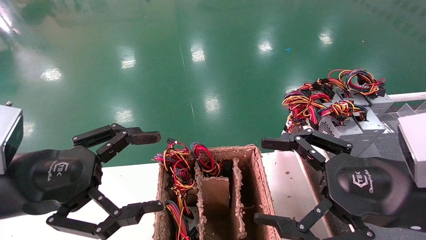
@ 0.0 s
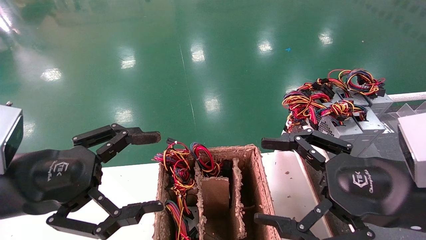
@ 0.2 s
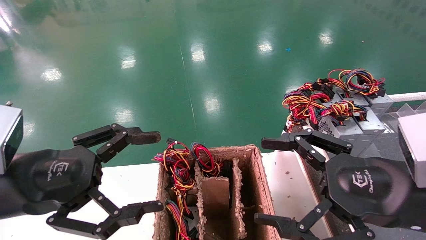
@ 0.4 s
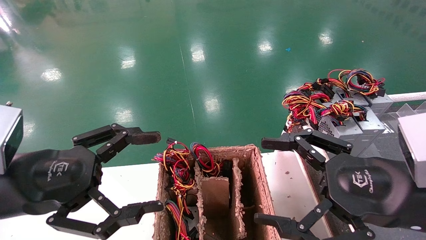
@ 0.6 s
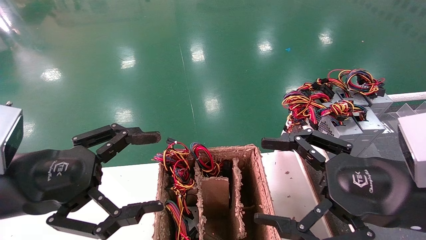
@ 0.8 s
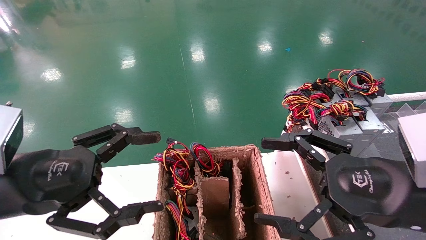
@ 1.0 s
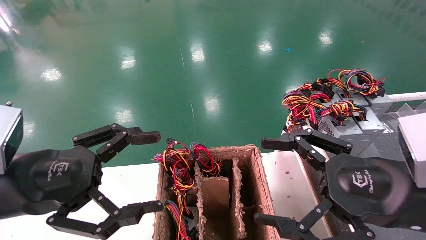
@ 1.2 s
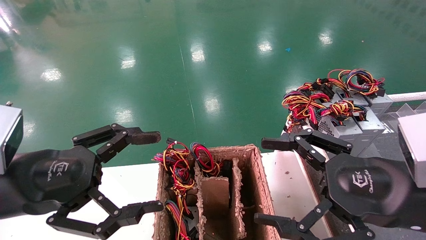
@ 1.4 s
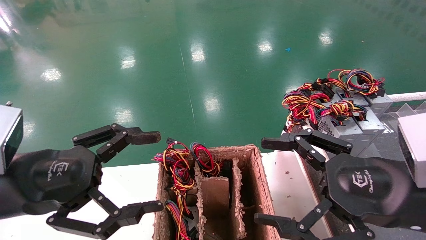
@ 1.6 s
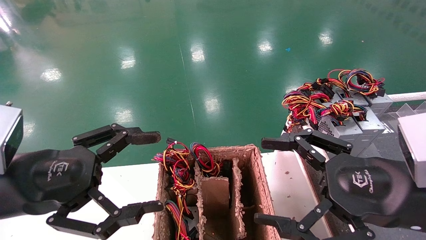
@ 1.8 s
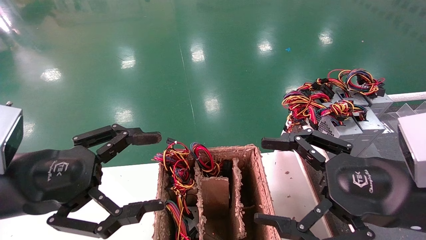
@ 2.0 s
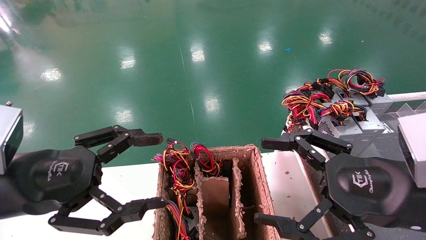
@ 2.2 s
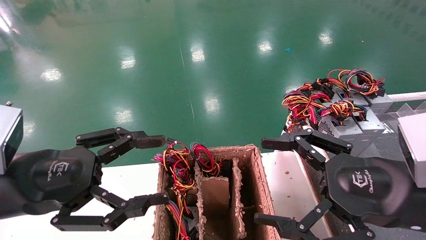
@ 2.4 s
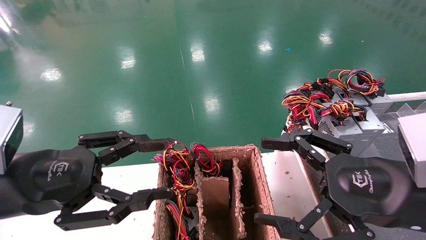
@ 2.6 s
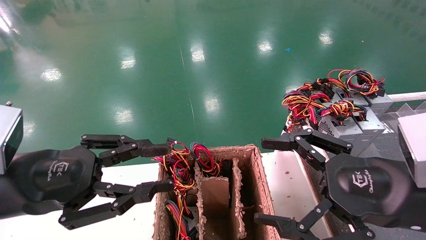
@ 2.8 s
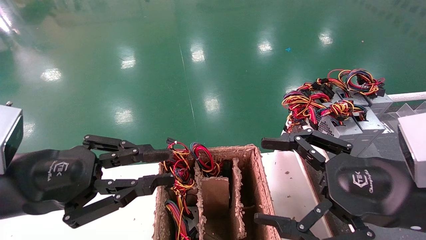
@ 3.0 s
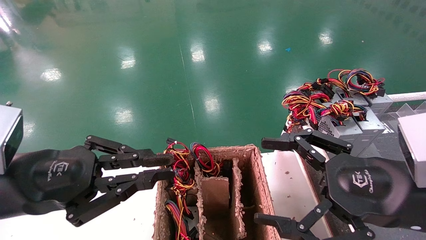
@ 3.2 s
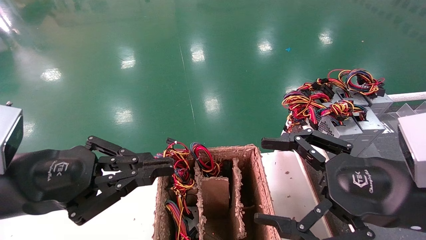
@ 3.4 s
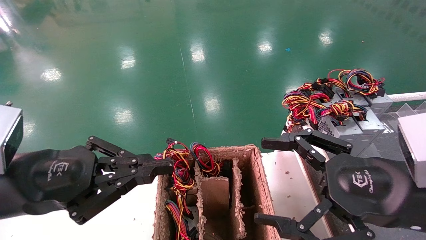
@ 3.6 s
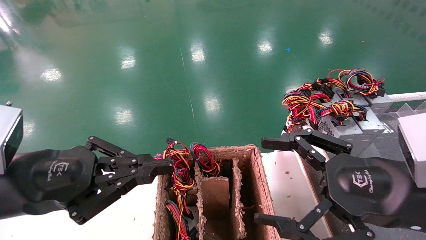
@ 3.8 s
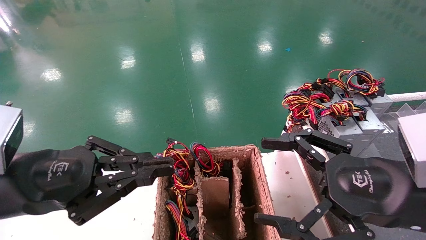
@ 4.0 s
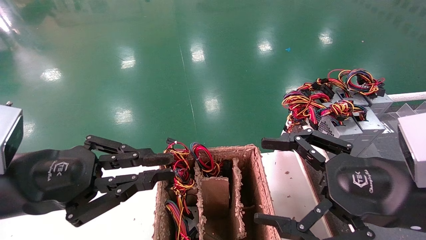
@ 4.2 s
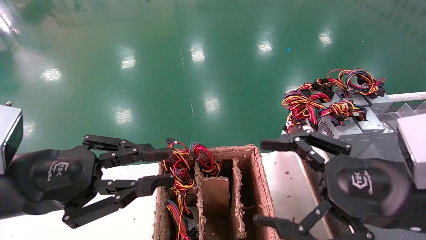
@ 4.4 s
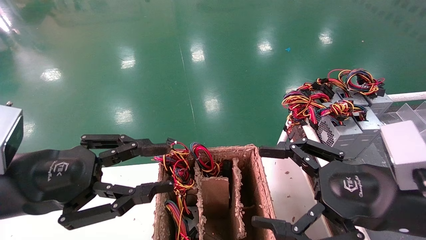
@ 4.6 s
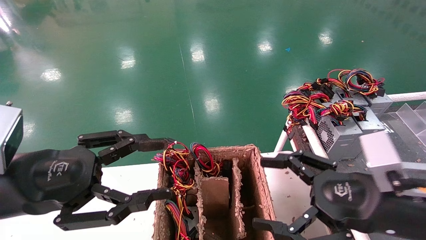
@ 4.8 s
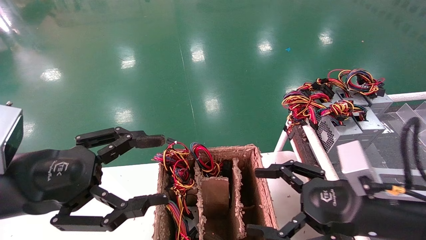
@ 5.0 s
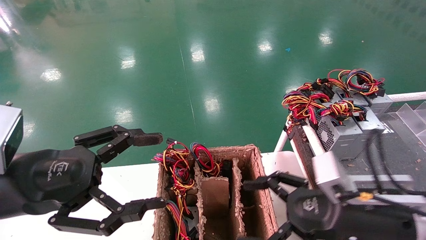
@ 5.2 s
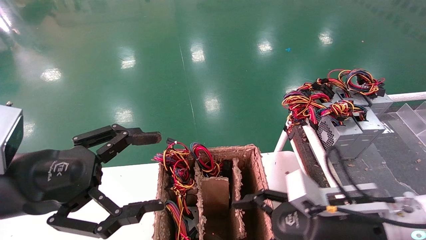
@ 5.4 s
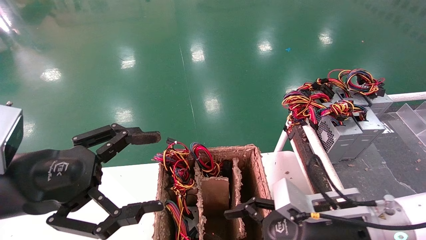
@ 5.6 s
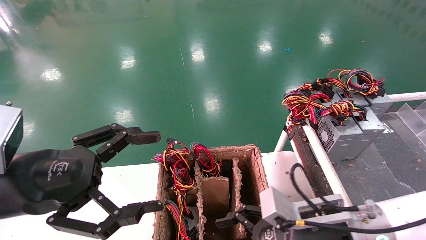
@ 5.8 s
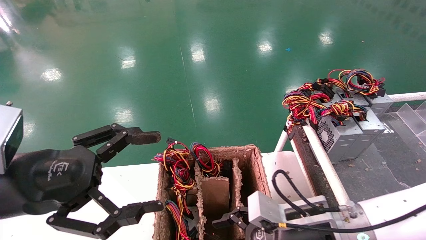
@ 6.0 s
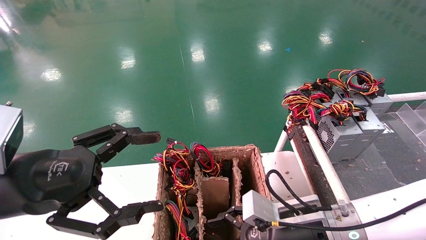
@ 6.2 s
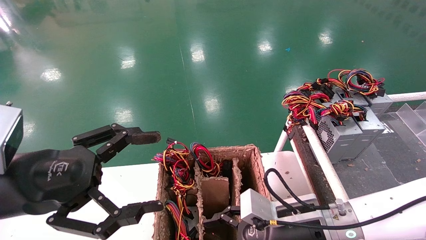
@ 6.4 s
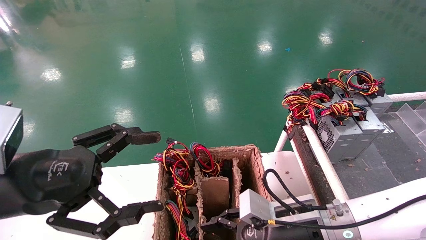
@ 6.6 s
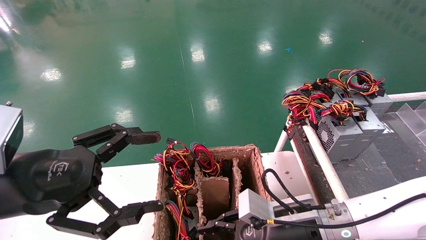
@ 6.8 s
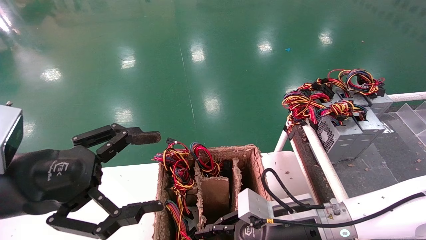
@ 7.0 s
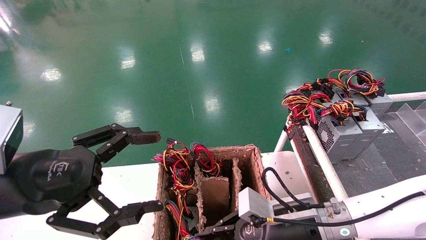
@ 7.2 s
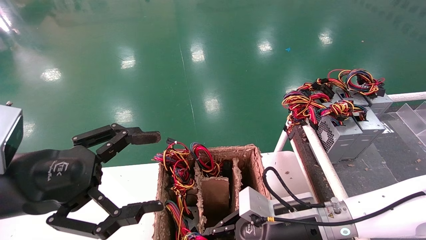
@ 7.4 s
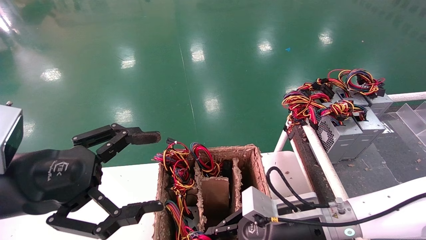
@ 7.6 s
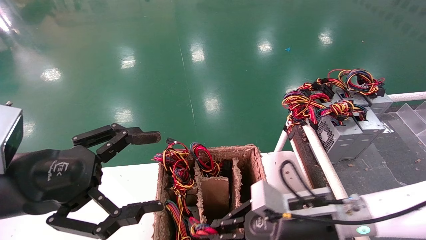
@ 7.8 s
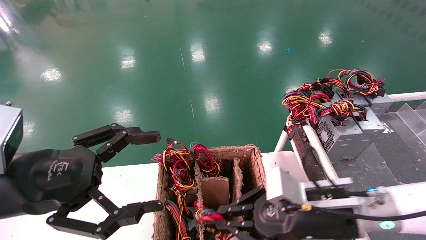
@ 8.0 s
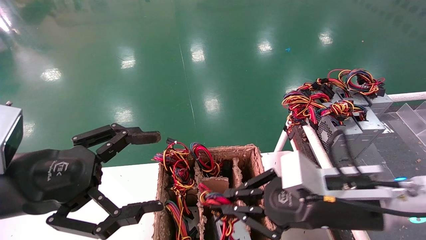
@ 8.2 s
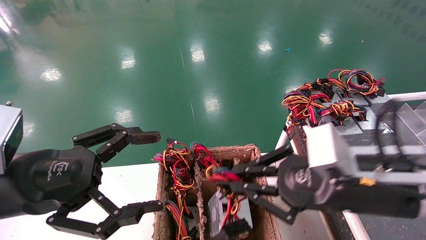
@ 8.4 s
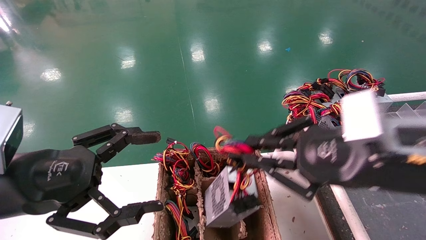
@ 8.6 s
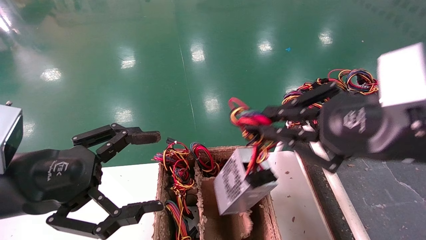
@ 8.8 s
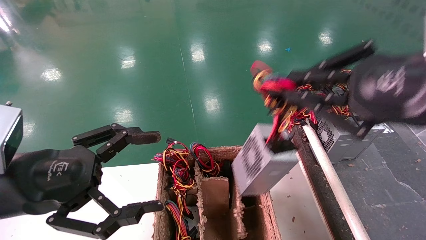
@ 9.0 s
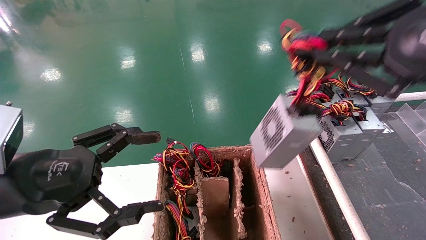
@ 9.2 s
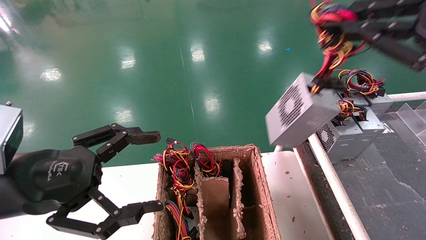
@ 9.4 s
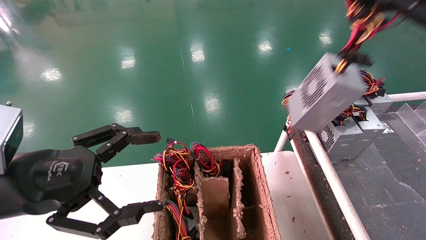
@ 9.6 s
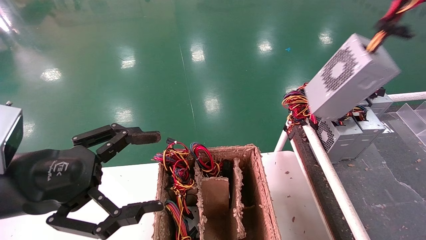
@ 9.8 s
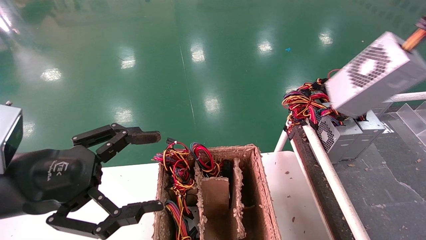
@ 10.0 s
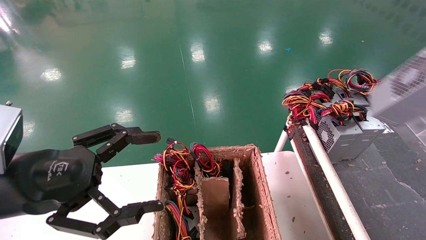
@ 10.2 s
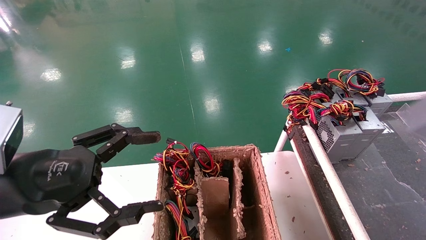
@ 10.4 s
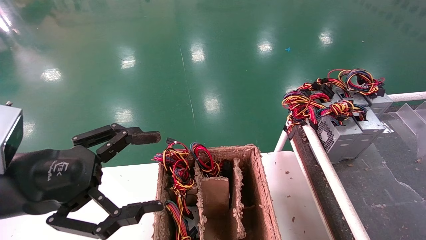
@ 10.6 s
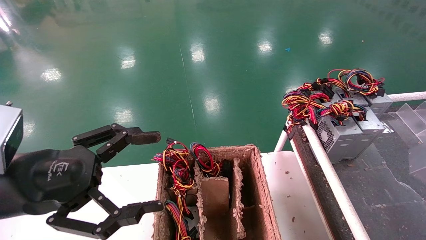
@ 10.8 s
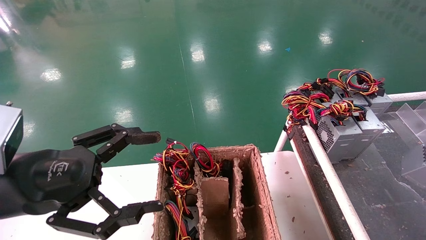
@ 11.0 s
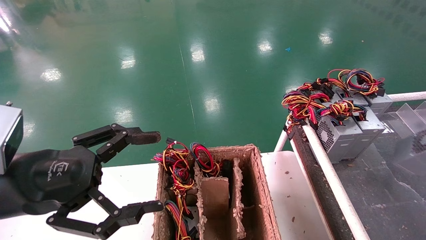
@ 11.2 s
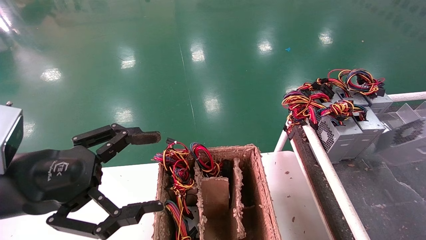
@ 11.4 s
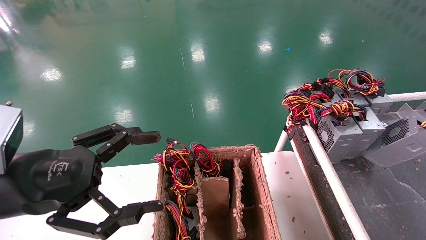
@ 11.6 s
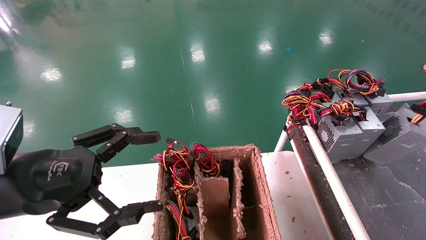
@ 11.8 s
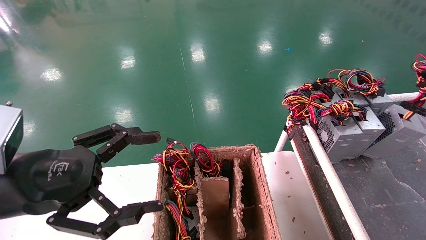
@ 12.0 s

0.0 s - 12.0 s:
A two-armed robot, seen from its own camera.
Step, 4.4 s - 7.4 s: Grab and lift the power supply from the large box.
0.0 s - 1.6 s: The two grippers keep their place.
1.6 s - 3.0 s: The left gripper closes up.
3.0 s - 4.4 s: The two grippers keep their place.
4.4 s - 6.0 s: The left gripper opens up. The right gripper travels downward, to the left and forward by roughly 15 cm.
6.0 s - 7.6 s: The right gripper closes.
7.6 s - 9.0 s: The right gripper is displaced upward, backward and to the right by some 30 cm.
9.0 s - 10.4 s: The right gripper travels to the right by roughly 20 cm.
10.4 s - 12.0 s: The right gripper is displaced forward by roughly 15 cm.

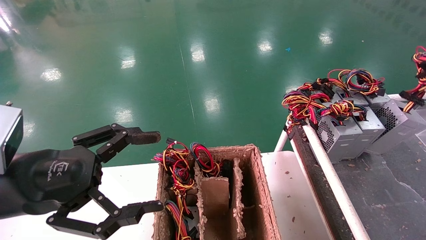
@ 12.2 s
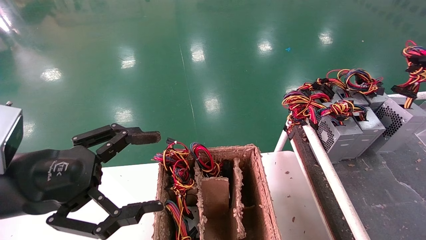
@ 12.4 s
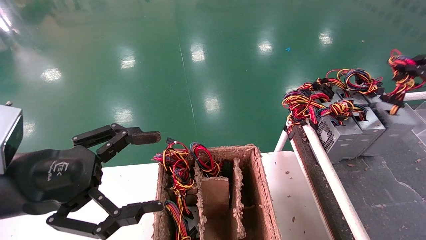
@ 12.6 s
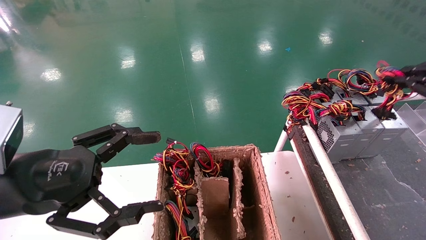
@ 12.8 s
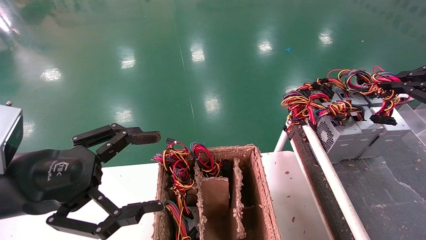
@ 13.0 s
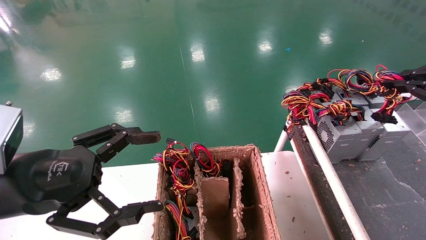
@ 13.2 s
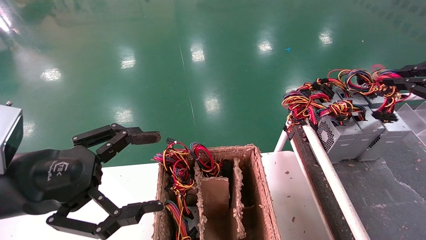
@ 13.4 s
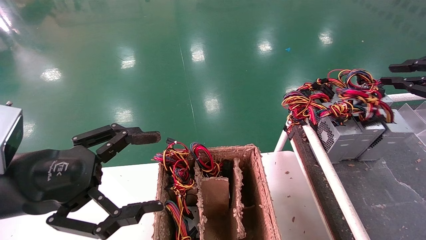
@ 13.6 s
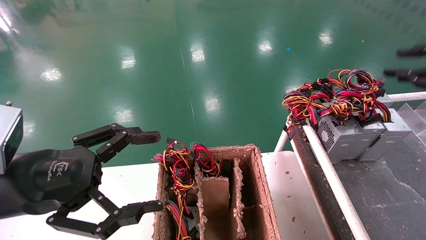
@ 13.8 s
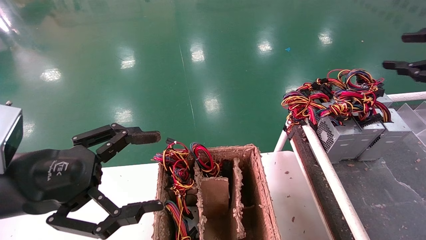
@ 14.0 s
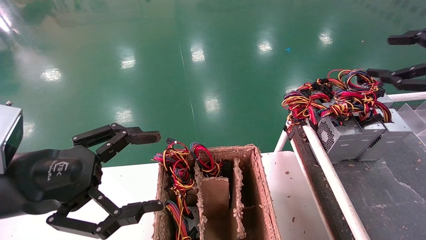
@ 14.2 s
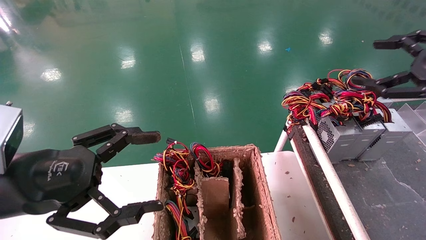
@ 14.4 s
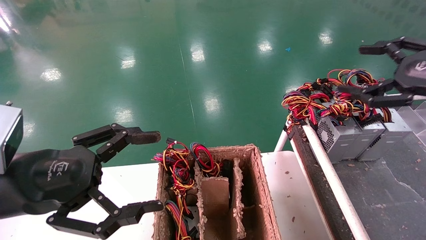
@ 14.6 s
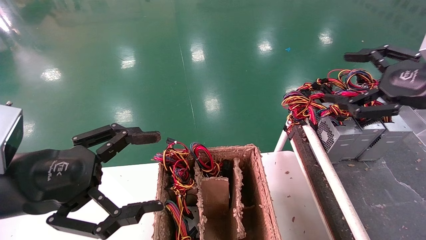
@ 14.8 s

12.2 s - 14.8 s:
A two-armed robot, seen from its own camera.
12.2 s - 13.4 s: The grippers stay close to where they were, moving slightly.
13.4 s - 14.8 s: The right gripper shifts approximately 10 cm to the left, and opens its fingers.
